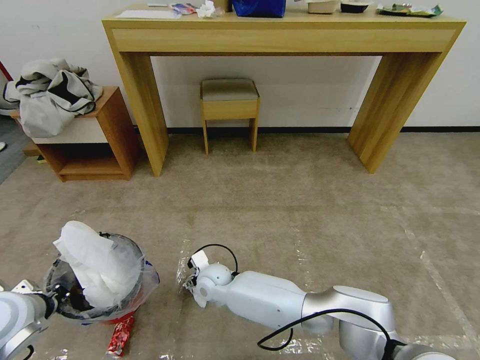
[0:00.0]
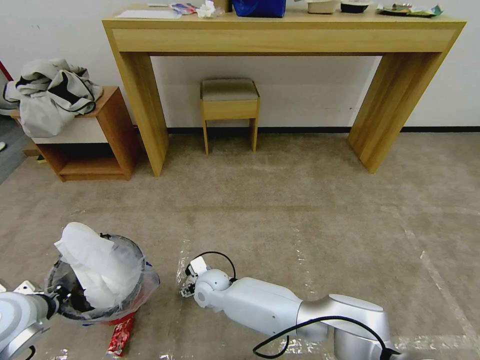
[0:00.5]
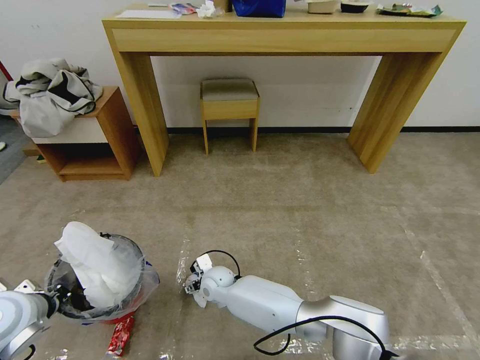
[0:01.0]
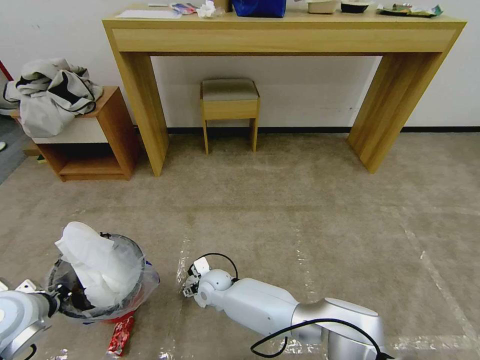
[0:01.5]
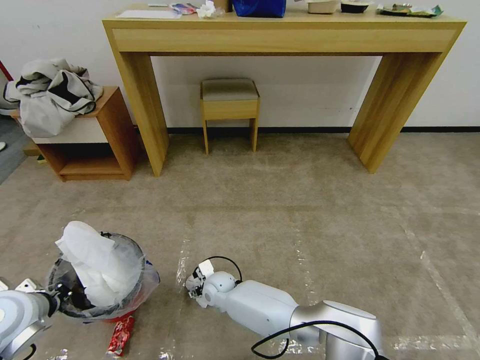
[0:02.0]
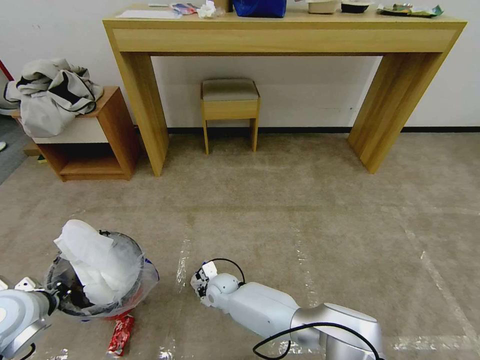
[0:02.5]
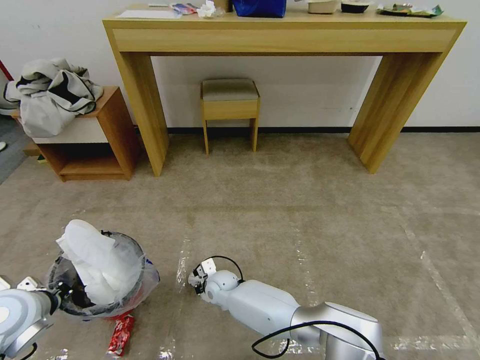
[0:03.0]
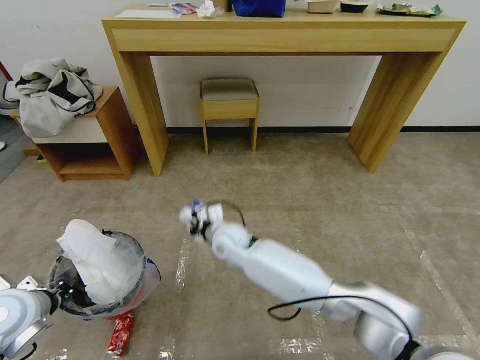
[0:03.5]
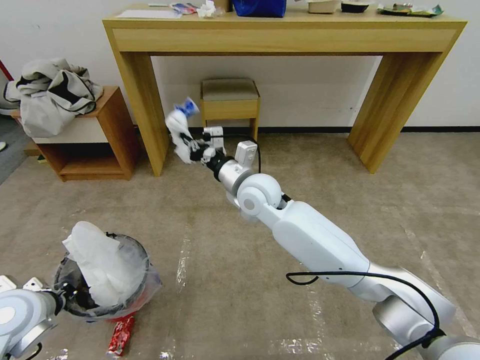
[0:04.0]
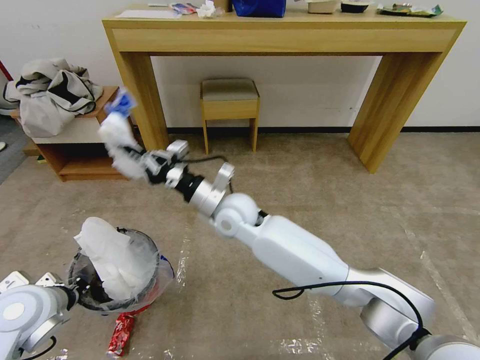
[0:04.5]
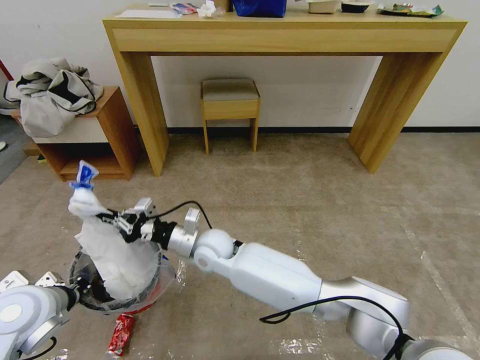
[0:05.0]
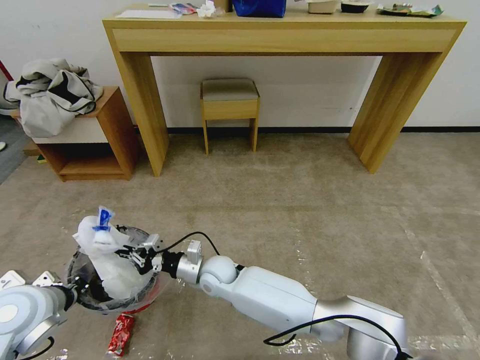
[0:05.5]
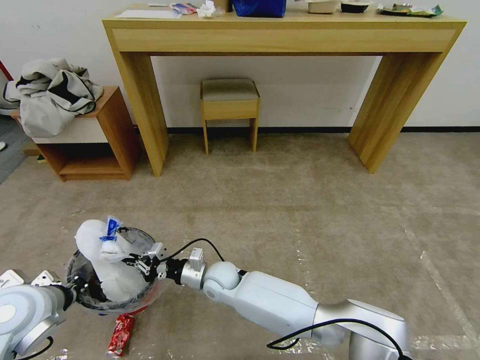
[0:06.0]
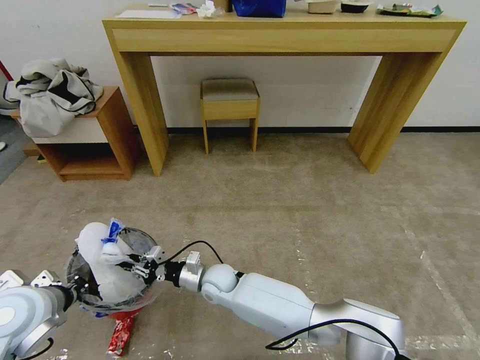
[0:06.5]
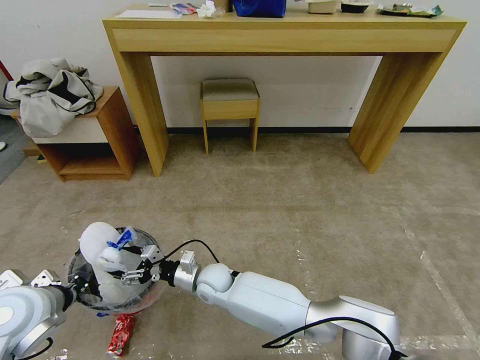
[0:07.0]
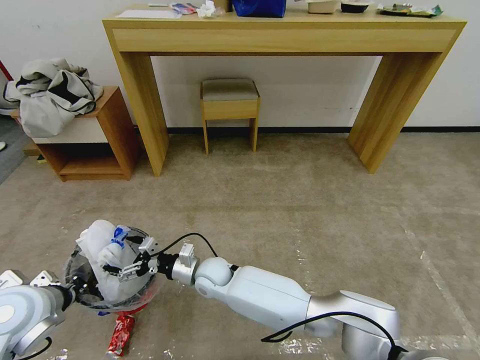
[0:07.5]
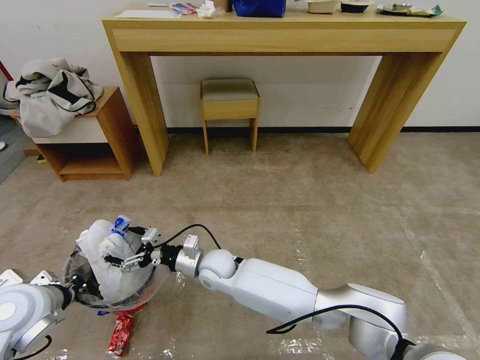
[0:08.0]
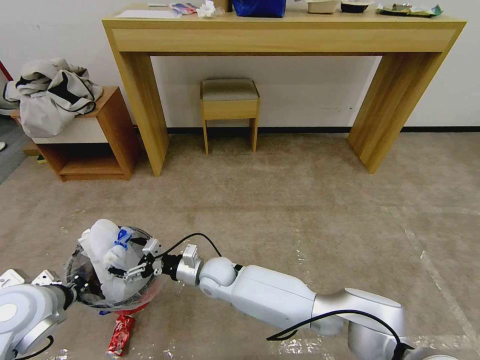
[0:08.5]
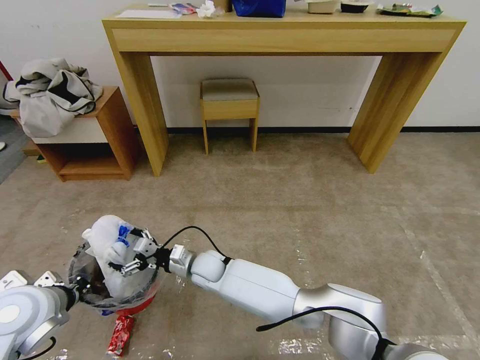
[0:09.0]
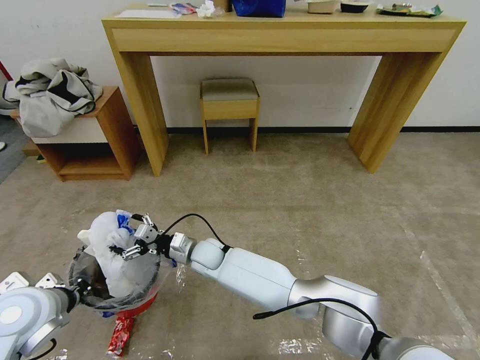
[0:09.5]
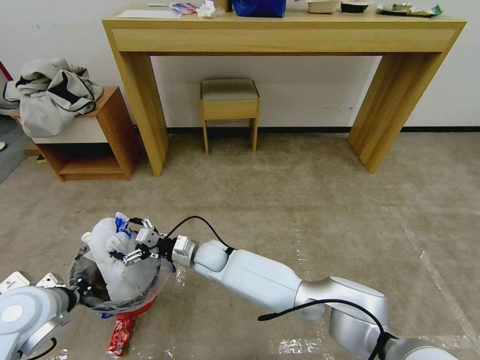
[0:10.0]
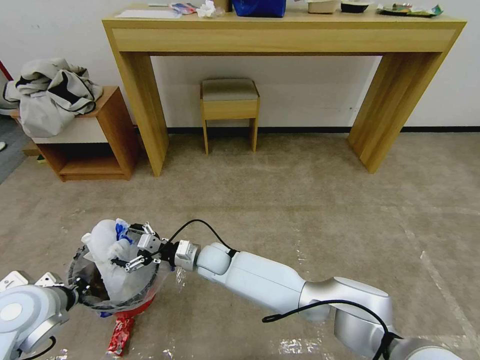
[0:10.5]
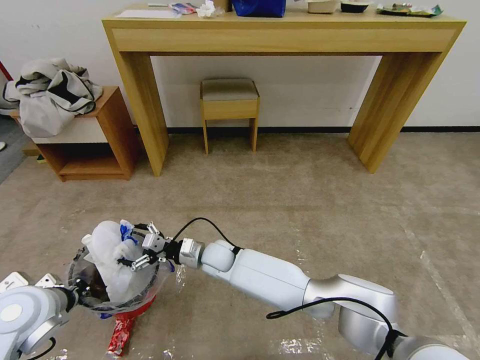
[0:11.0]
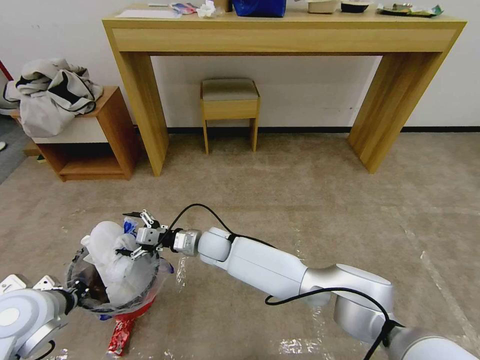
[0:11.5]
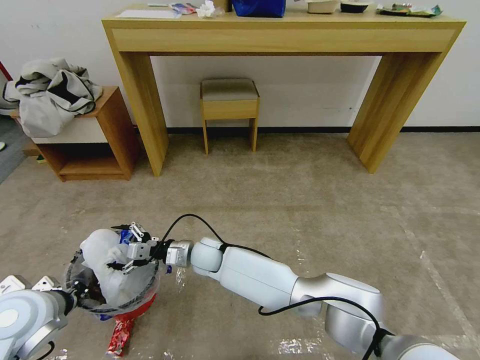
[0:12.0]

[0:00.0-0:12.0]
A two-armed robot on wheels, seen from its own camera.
Task of the whole recording: Pick up the trash bin and place the garbage on the floor into it.
0:00.0 to 0:02.0: The right gripper heads downward, covering about 5 cm.
0:02.0 to 0:04.0: The right gripper shifts some 30 cm upward, and closes its fingers.
0:04.0 to 0:06.0: The right gripper is displaced downward by roughly 25 cm.
0:06.0 to 0:08.0: The right gripper opens.

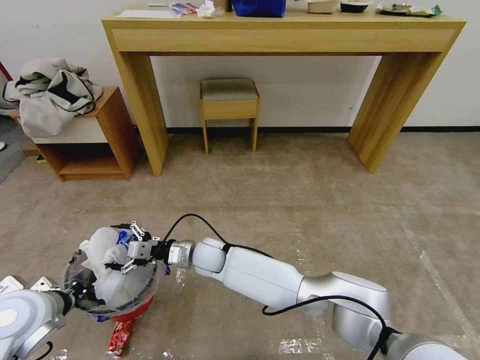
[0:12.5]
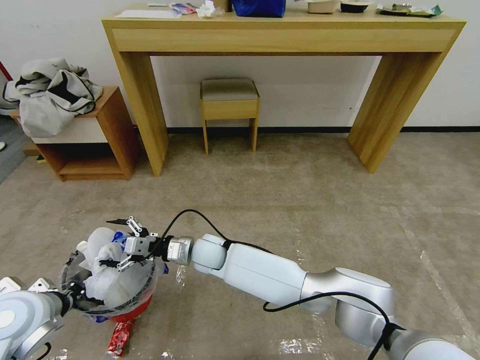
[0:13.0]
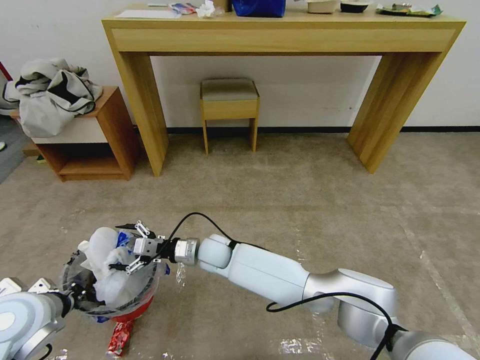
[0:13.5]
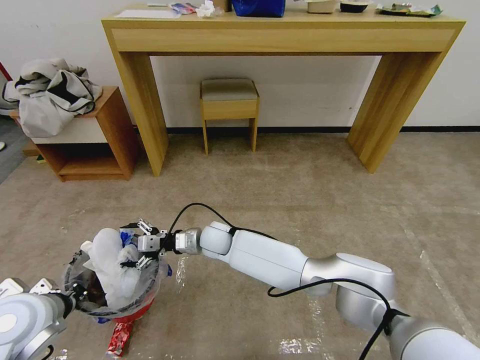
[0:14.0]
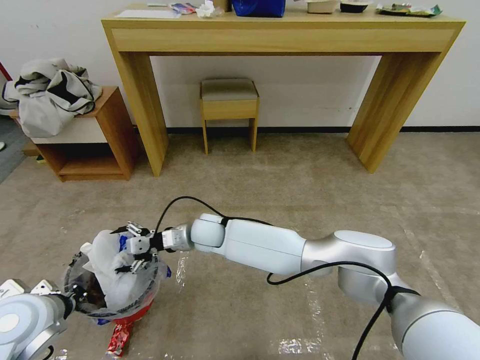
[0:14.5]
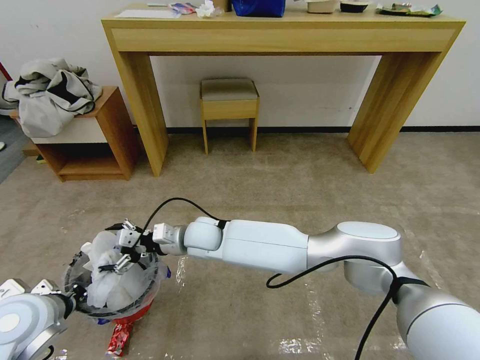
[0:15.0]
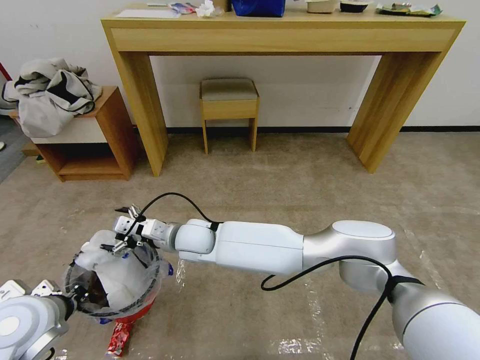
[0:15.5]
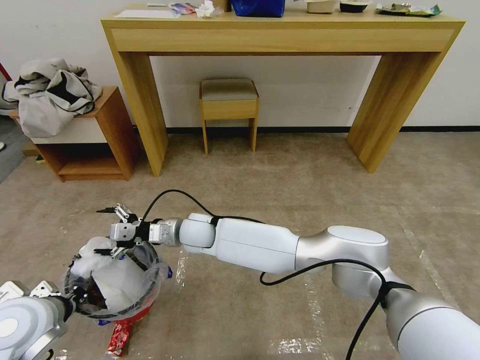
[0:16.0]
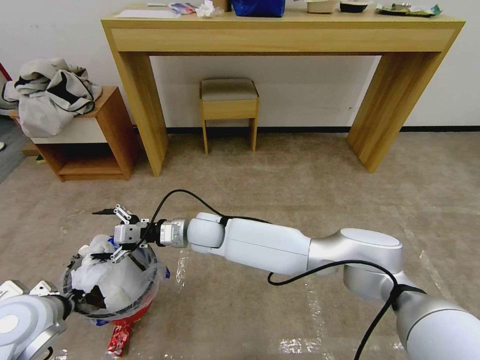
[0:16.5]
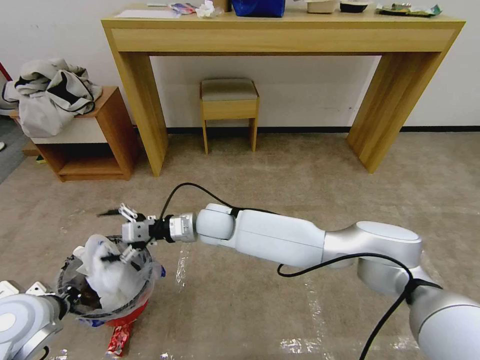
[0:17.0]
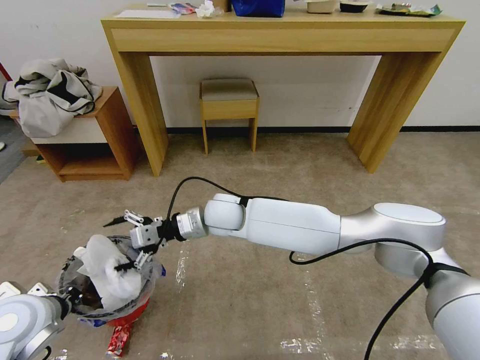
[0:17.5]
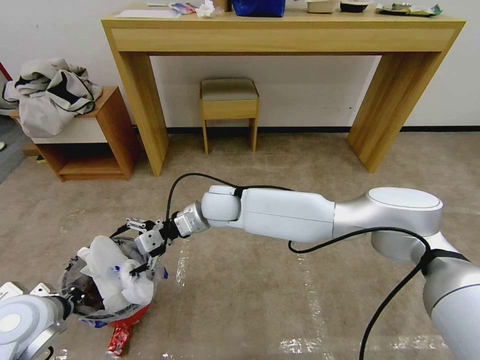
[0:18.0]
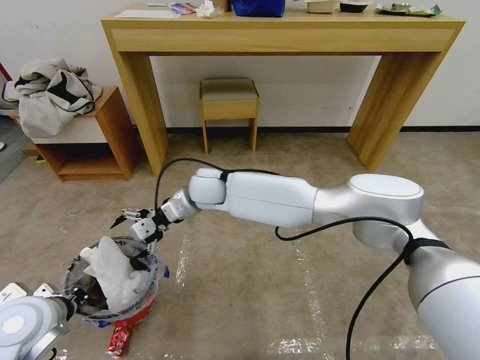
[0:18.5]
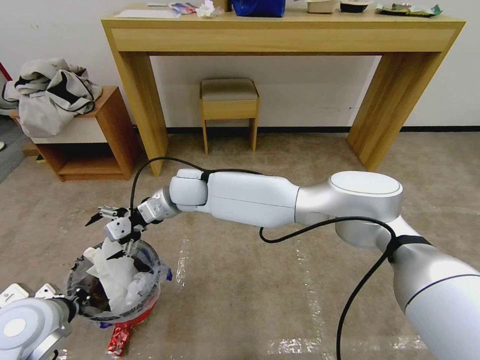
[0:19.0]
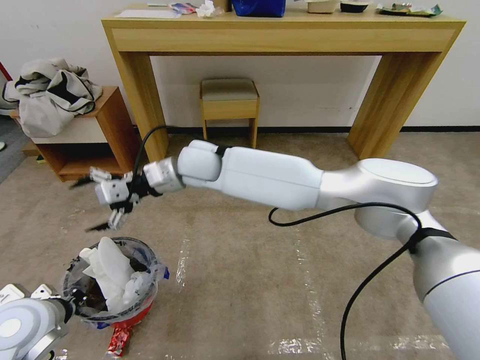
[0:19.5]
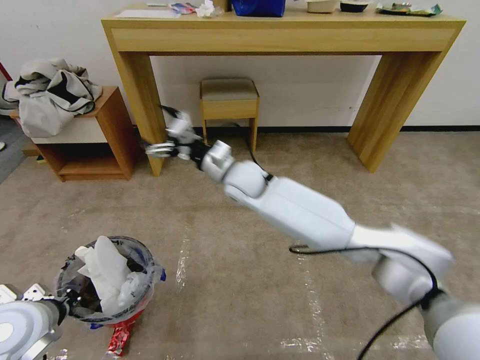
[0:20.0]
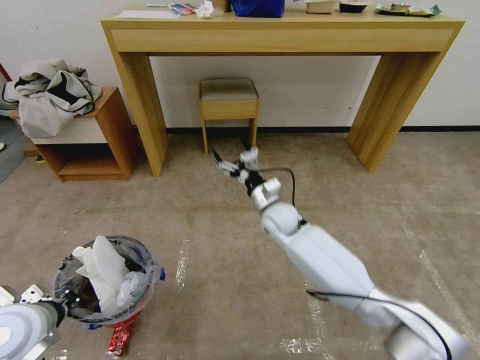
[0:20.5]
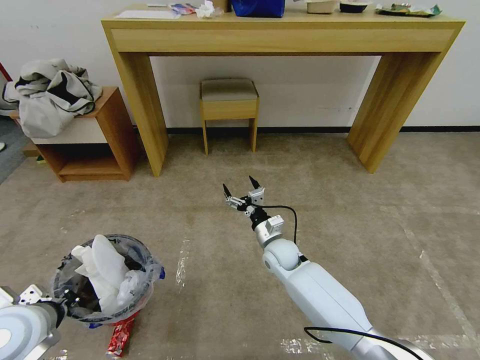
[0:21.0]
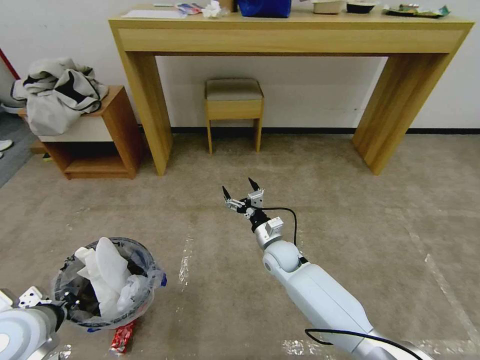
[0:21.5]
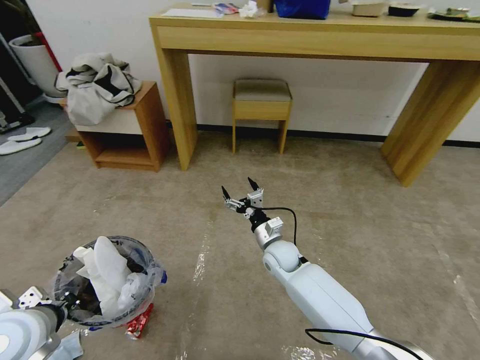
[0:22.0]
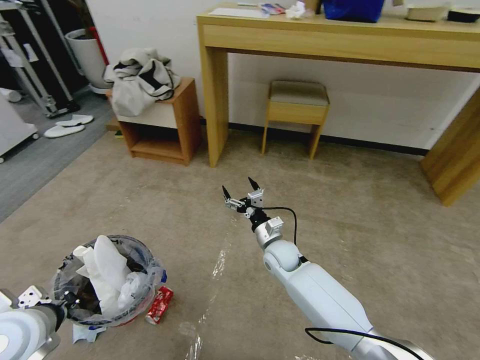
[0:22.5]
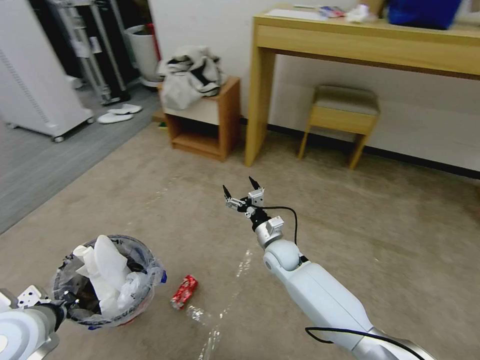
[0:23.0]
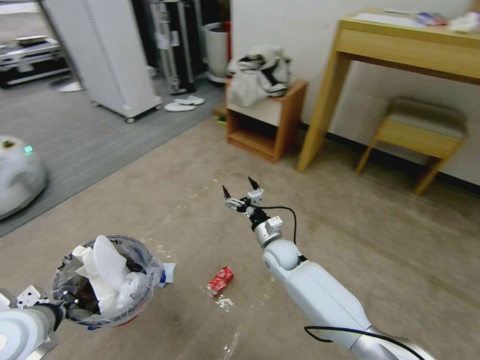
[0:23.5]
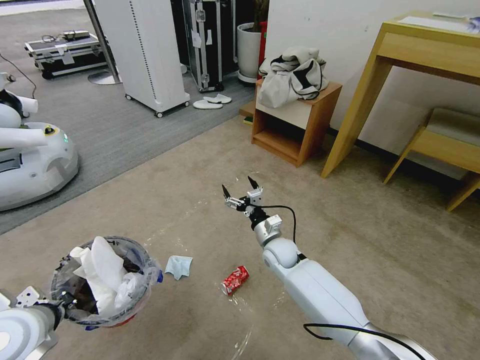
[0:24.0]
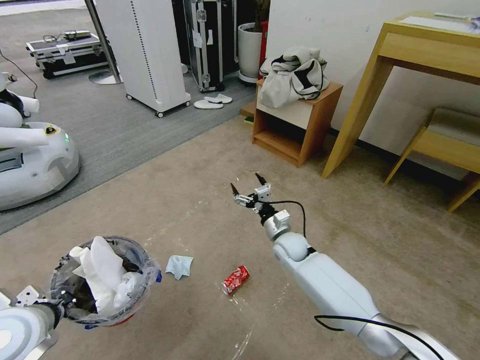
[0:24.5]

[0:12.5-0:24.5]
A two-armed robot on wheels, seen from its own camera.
Task of the whole recording: Pick up the trash bin and place the garbage on the floor into it.
0:12.5 to 0:14.5: The right gripper is displaced upward by about 5 cm.
0:16.5 to 0:18.5: The right gripper goes approximately 10 cm upward and forward.
0:18.5 to 0:20.5: The right gripper goes some 20 cm to the right and downward.
0:20.5 to 0:22.5: The right gripper is displaced downward and backward by approximately 10 cm.

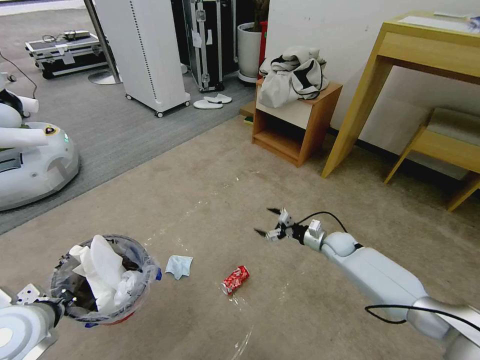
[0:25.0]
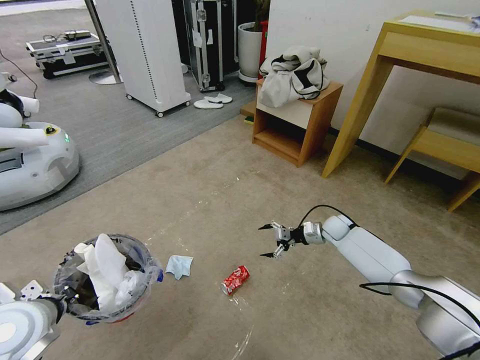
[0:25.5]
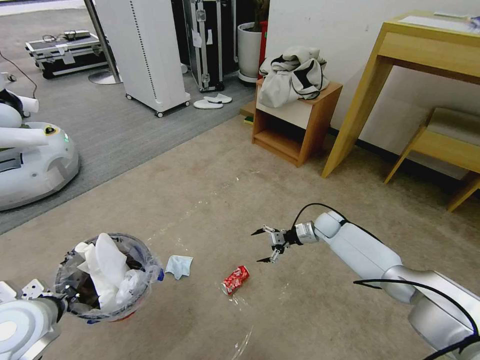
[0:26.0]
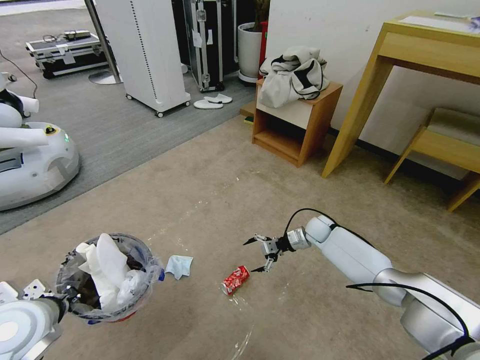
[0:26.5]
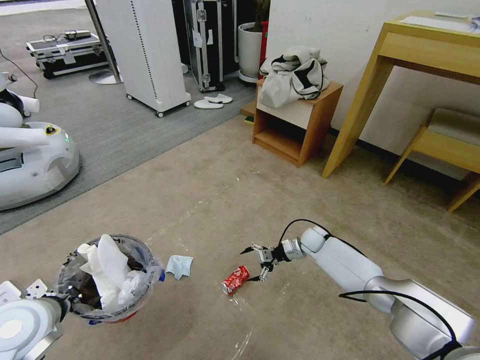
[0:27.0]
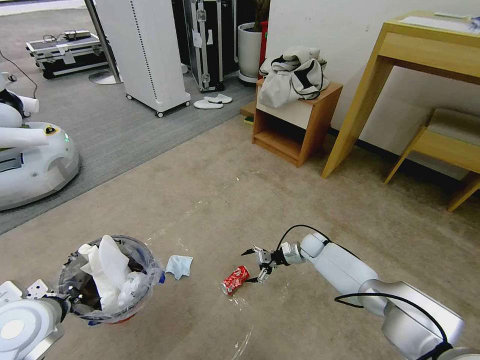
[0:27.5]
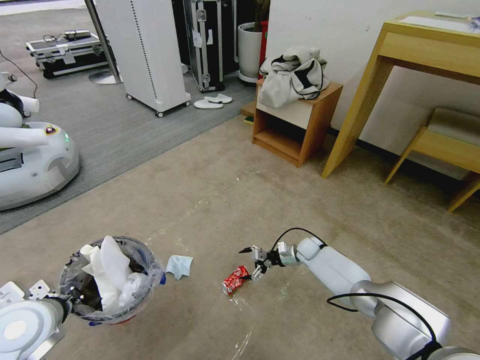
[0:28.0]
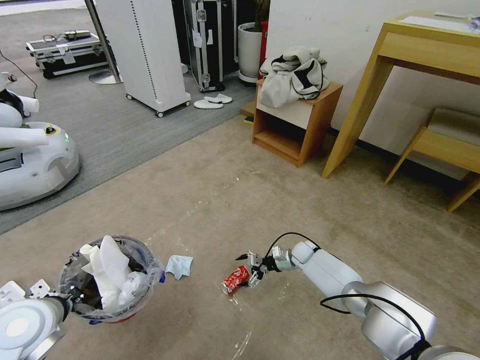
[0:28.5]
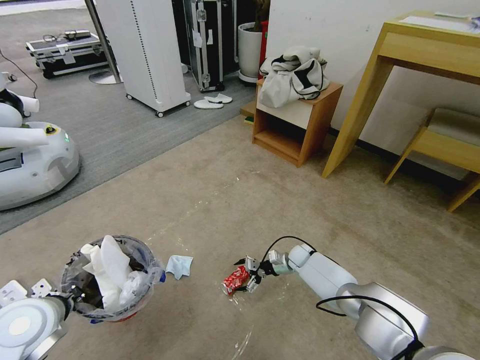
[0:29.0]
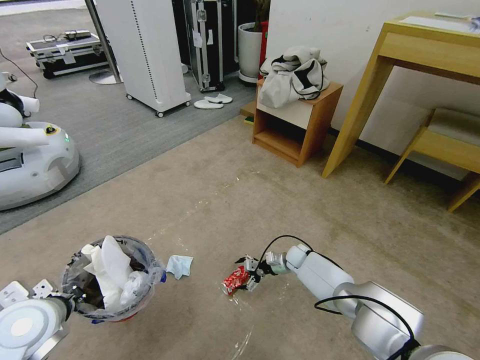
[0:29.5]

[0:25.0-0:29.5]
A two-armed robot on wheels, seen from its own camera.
Task of the whole recording: Pick up the trash bin and place the garbage on the floor into it.
0:25.0 to 0:27.0: The right gripper moves approximately 5 cm.
0:27.0 to 0:29.5: The right gripper is displaced downward by roughly 5 cm.
